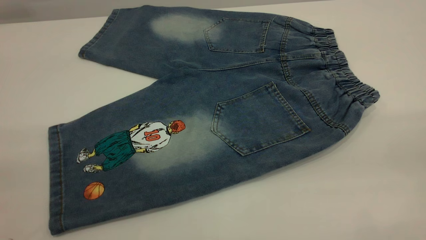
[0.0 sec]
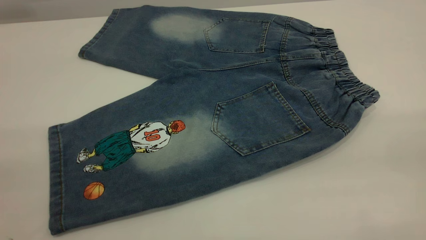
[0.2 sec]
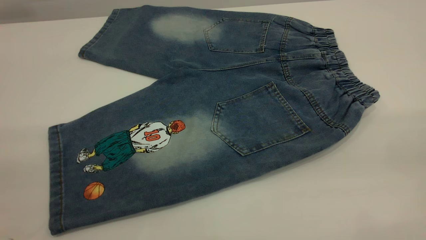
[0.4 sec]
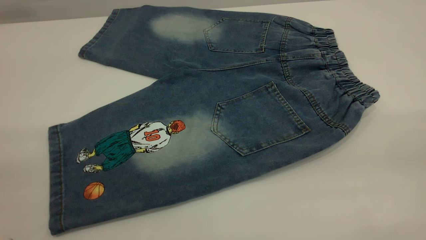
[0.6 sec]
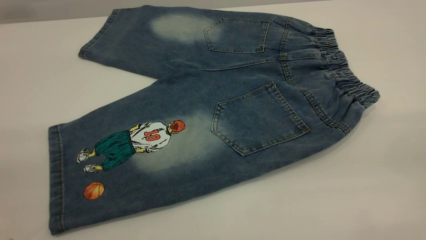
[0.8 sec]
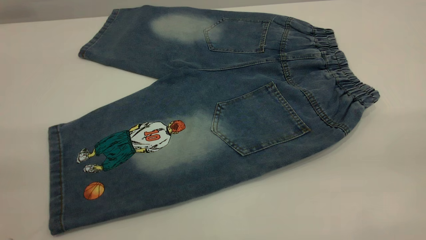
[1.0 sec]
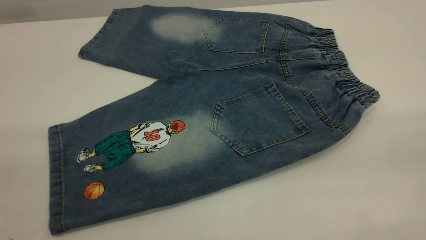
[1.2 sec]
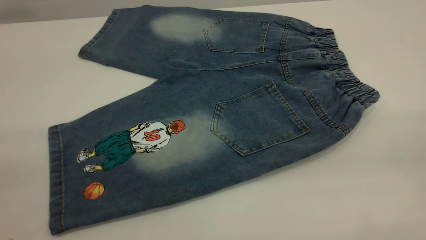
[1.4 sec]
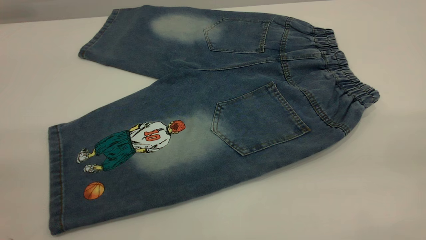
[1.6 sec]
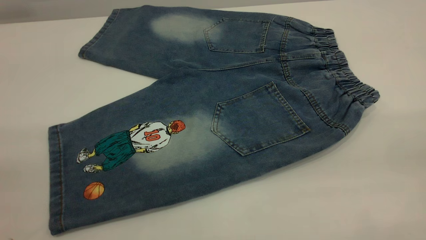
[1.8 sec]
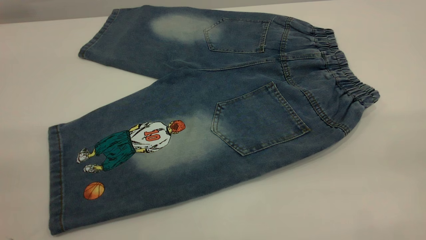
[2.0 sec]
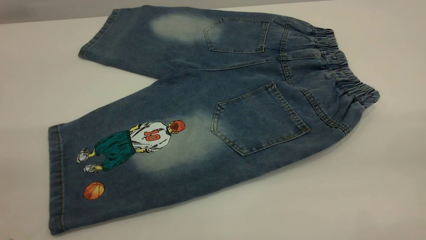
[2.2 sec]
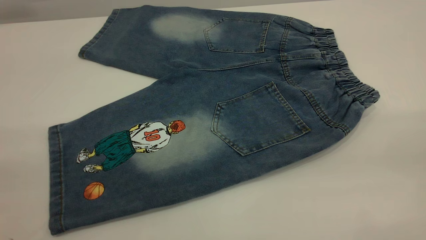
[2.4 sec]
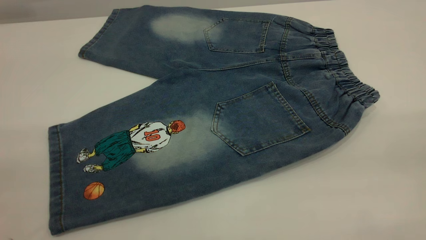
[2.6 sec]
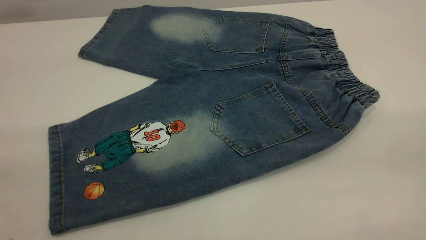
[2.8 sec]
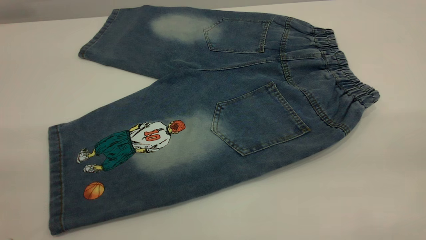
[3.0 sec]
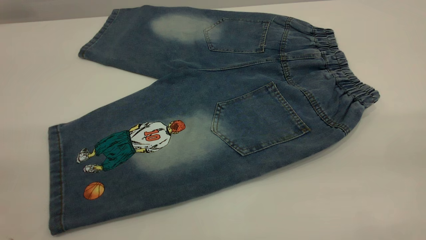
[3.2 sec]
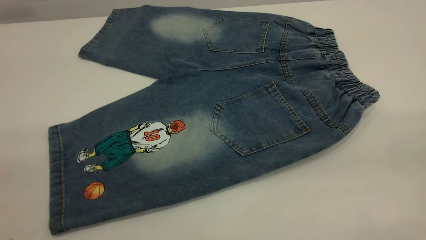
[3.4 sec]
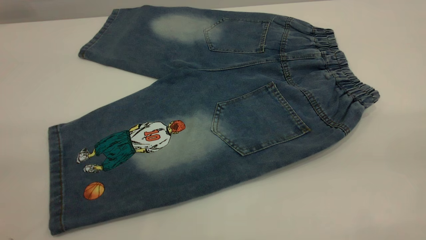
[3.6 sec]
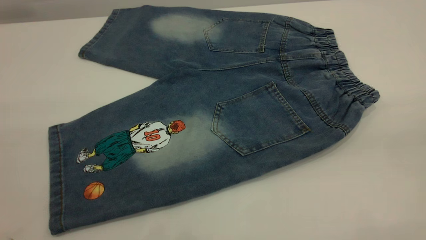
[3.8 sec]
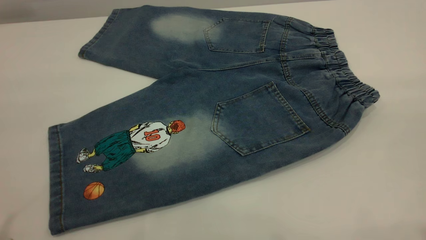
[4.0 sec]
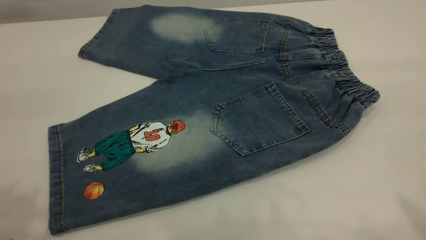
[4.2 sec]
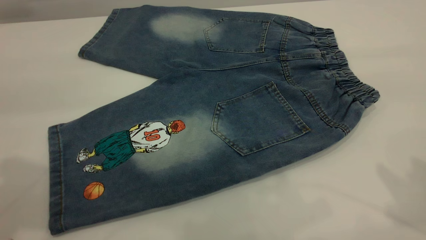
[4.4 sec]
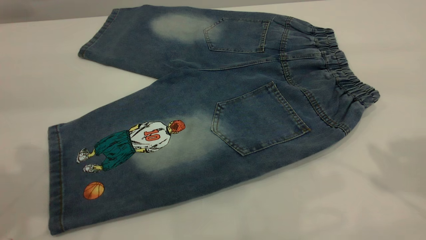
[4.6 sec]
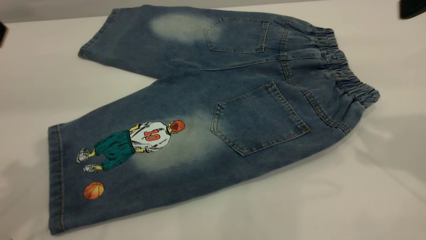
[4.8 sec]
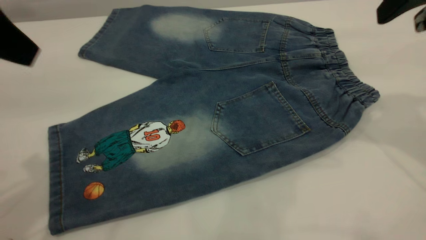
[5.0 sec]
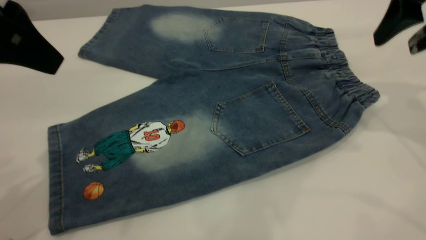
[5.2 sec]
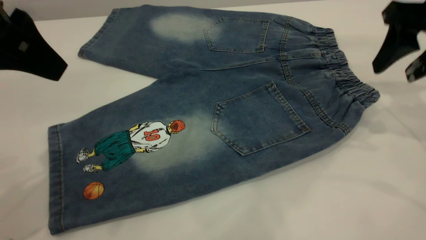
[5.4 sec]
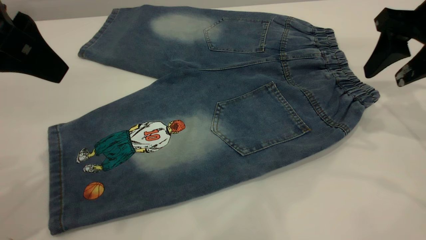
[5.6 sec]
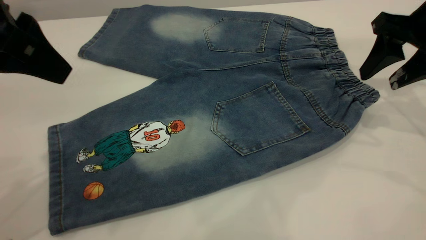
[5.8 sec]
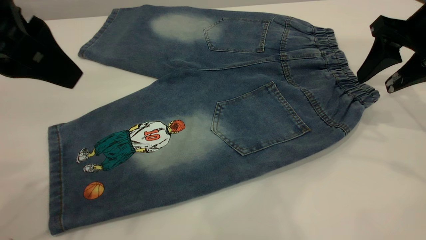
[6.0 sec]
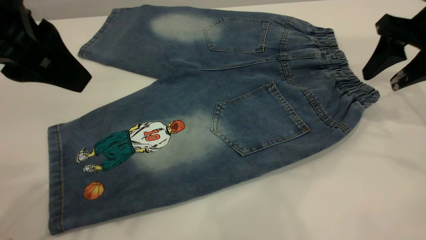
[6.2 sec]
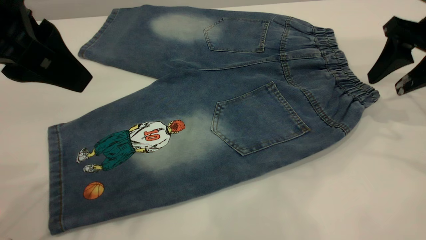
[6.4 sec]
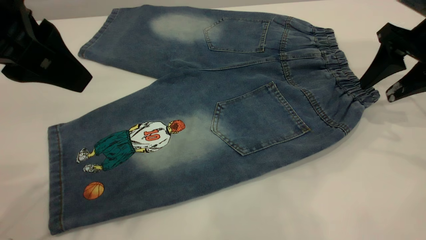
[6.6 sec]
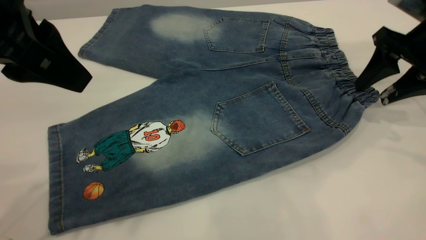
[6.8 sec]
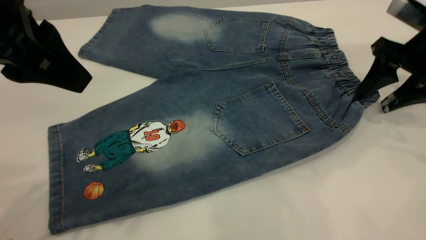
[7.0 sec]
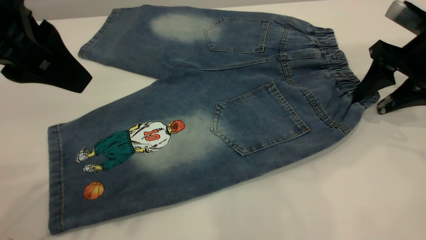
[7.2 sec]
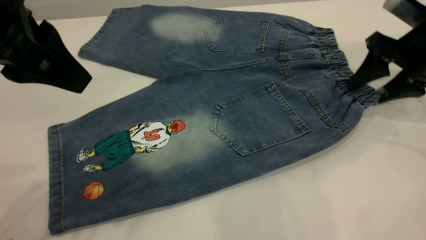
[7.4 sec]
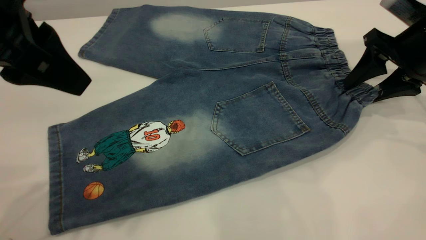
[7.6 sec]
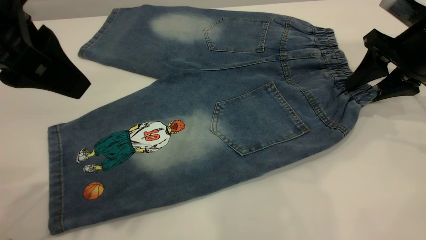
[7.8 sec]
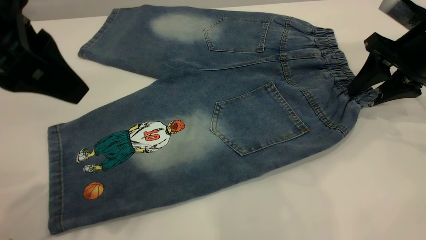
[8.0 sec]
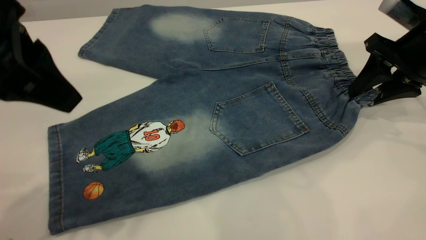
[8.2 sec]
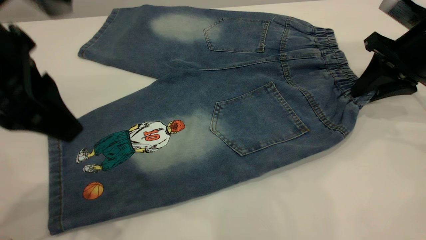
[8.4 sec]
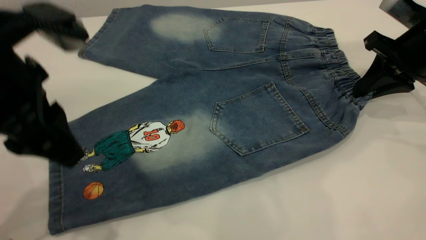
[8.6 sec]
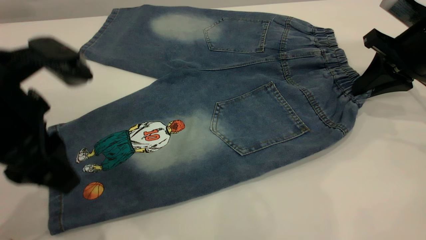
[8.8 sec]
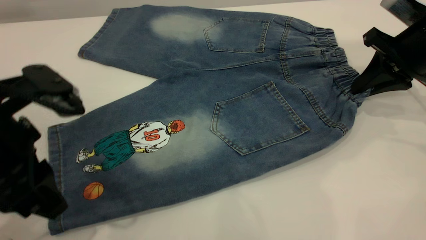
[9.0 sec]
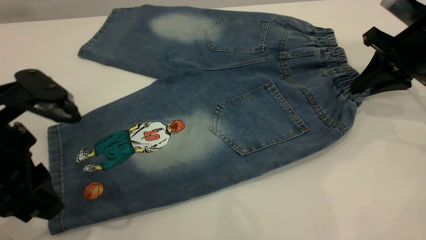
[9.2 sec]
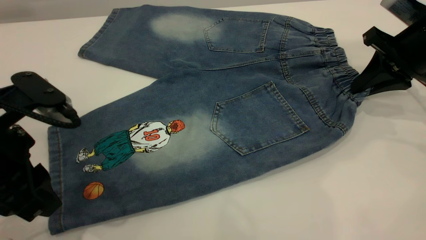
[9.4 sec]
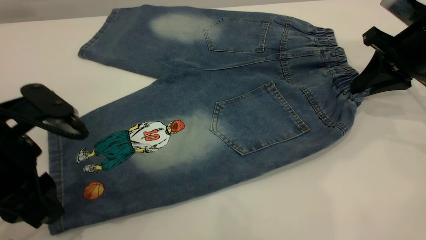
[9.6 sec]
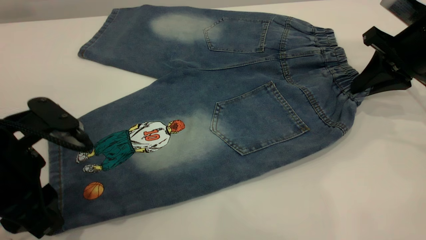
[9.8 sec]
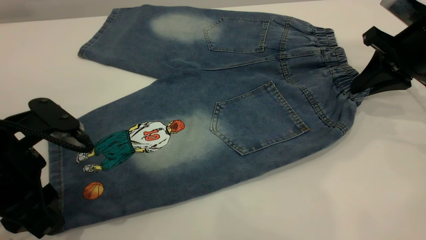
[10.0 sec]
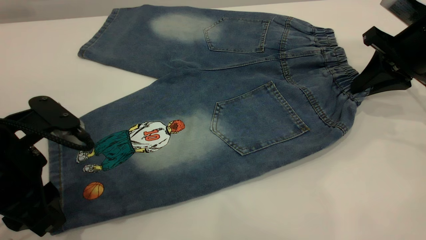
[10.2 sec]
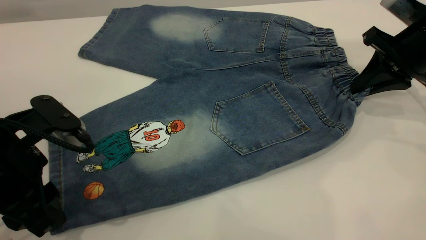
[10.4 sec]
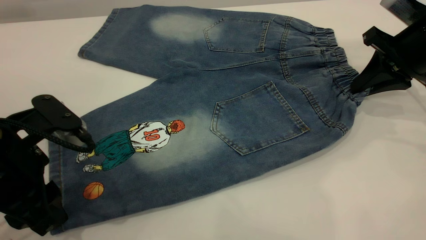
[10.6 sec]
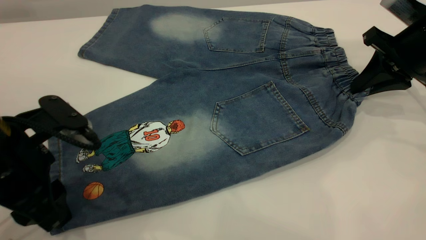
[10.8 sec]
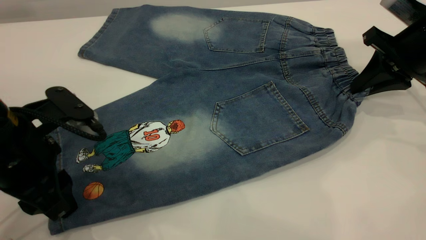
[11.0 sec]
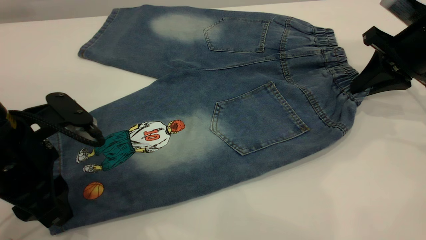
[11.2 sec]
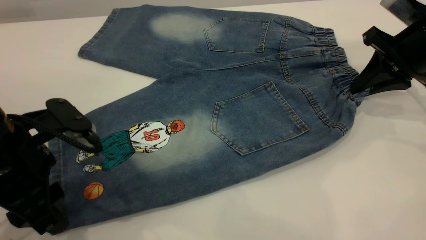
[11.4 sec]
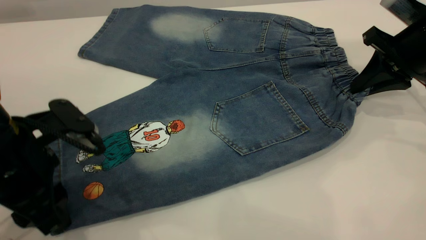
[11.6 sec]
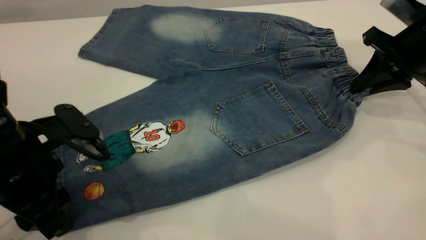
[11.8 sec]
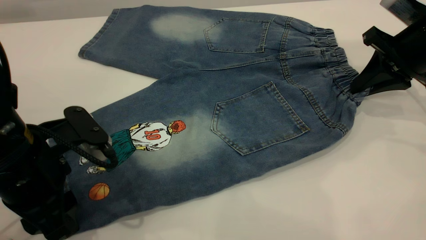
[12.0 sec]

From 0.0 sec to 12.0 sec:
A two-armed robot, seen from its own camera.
From 0.0 sec to 3.0 sec: Both grippers stay put.
From 4.4 sec to 6.0 sec: The right gripper goes approximately 25 cm forward and downward. The left gripper heads to the right and downward, covering approximately 10 cm.
From 6.0 sec to 7.6 sec: The grippers stay close to where they were, moving slightly.
From 7.6 sec to 9.0 sec: The right gripper closes up, while the left gripper heads downward, covering roughly 10 cm.
From 9.0 sec to 10.4 sec: The grippers stay close to where they were, moving slightly.
From 10.4 sec to 12.0 sec: The grippers make only small movements.

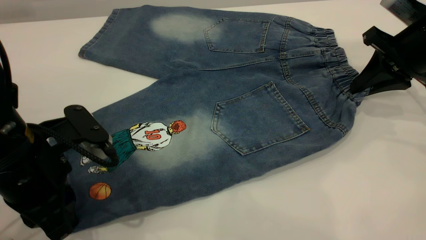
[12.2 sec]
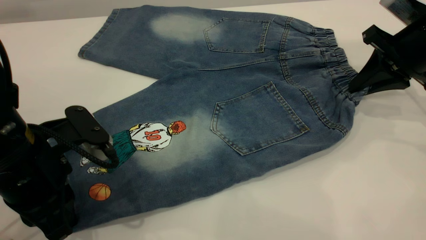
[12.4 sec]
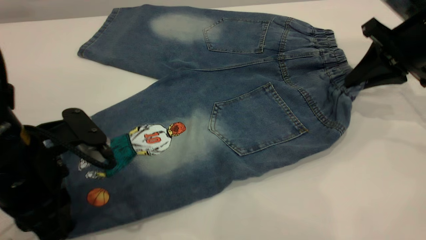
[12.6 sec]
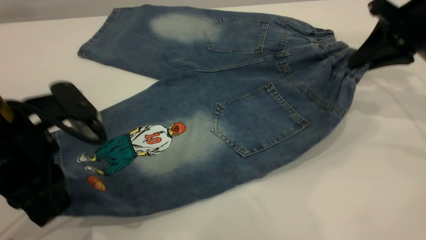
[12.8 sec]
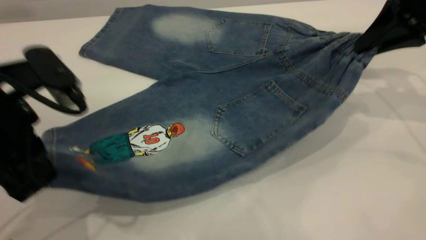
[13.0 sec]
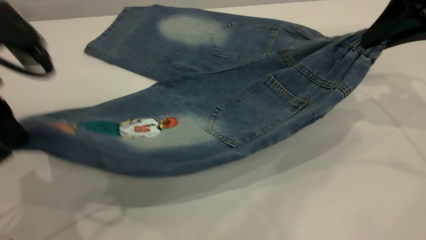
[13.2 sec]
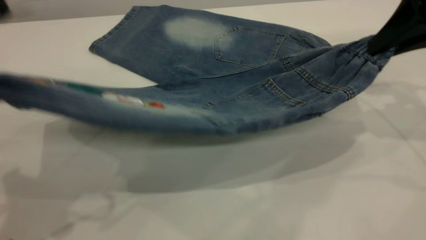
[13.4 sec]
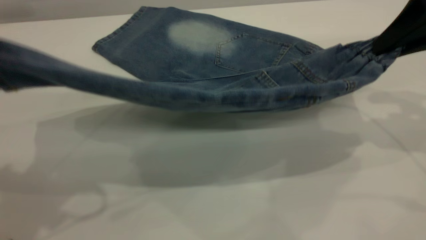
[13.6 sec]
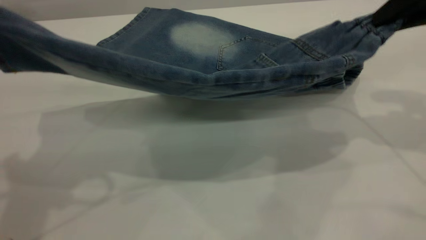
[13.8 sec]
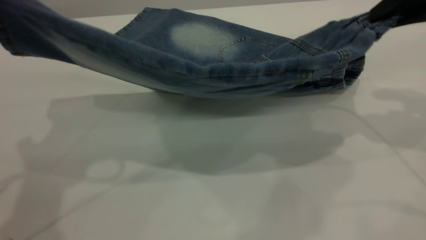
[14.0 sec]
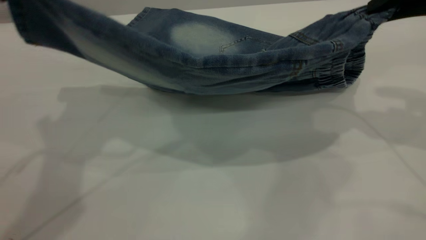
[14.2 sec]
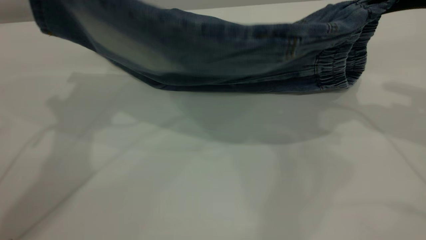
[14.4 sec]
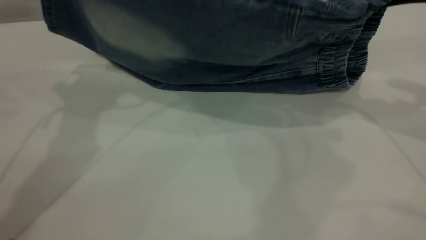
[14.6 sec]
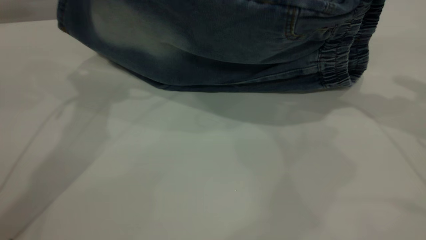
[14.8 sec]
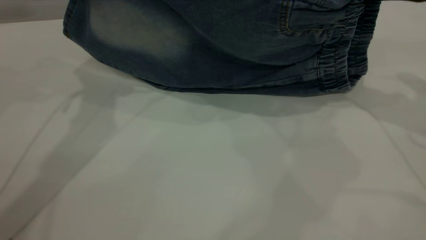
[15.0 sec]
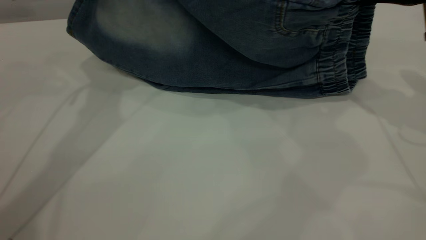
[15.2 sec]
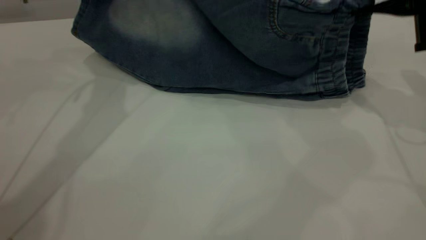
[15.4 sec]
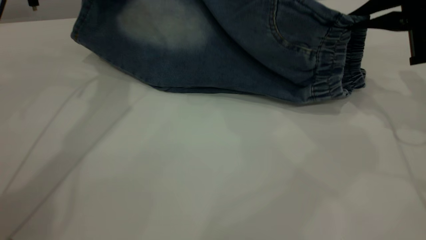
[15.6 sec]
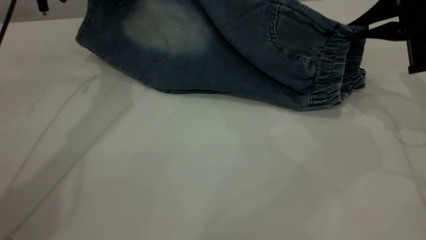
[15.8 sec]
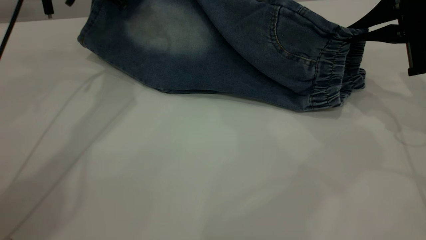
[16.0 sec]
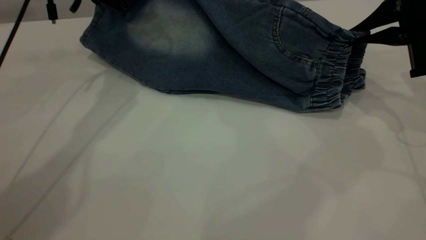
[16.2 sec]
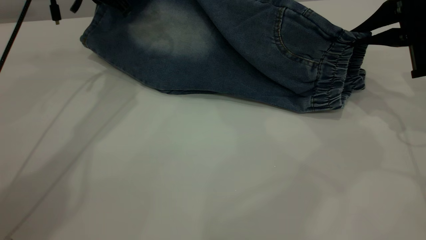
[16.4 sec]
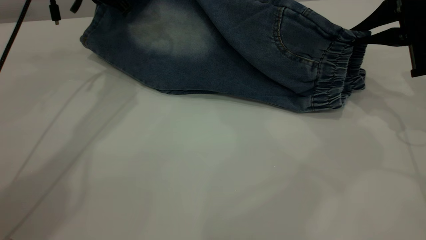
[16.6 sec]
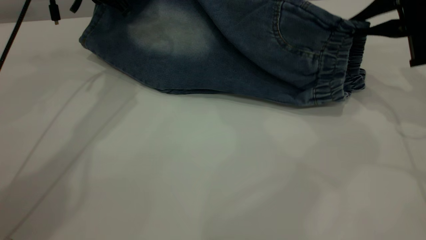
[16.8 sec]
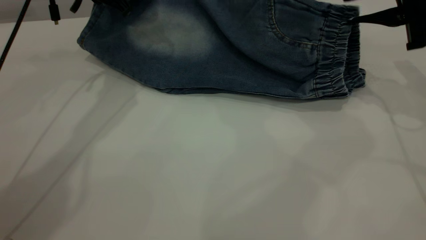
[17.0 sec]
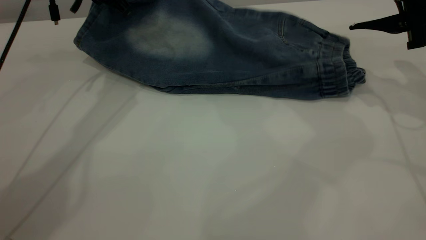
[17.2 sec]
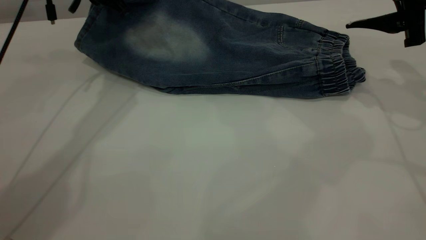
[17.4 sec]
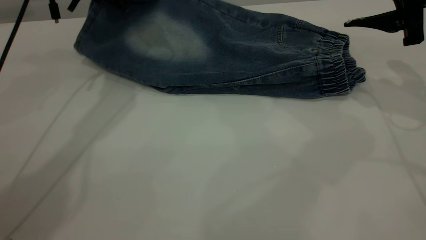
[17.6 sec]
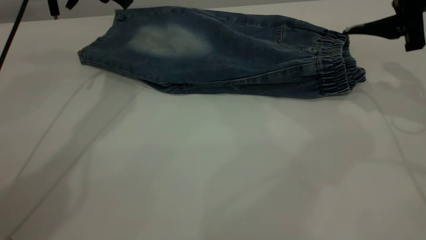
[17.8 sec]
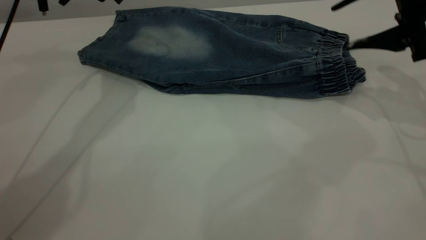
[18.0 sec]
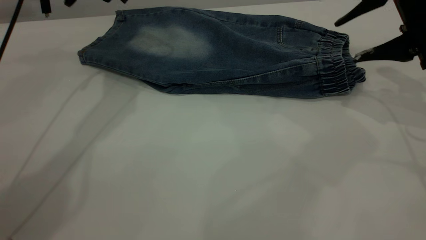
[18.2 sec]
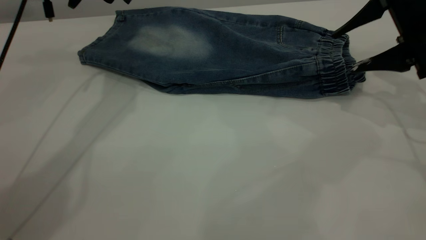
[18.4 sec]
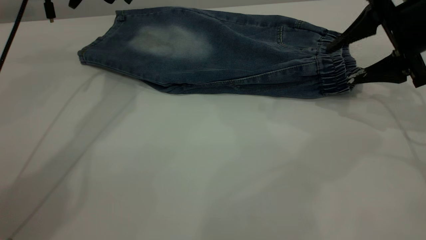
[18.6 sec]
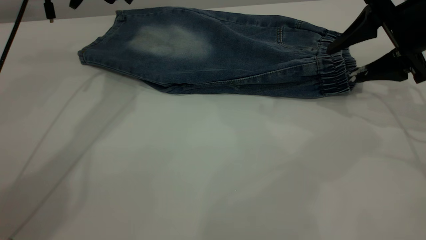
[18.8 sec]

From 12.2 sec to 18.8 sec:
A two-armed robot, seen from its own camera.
Step, from 12.2 sec to 17.8 sec: Fold the bottom of the pants upward.
From 12.2 sec to 13.8 sec: The left gripper shifts approximately 20 cm upward; the right gripper is displaced upward and backward by roughly 15 cm.
From 13.8 sec to 15.4 sec: The left gripper shifts roughly 20 cm forward; the right gripper is displaced downward by about 5 cm.
From 15.4 sec to 17.2 sec: The right gripper opens. The left gripper moves approximately 5 cm.
From 17.2 sec to 18.8 sec: The left gripper opens.
